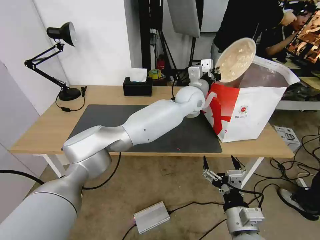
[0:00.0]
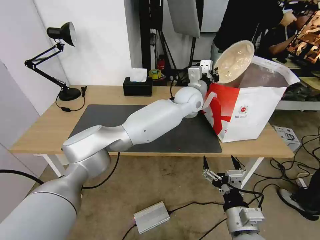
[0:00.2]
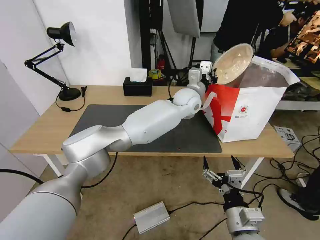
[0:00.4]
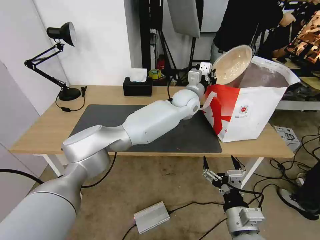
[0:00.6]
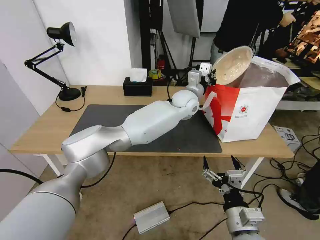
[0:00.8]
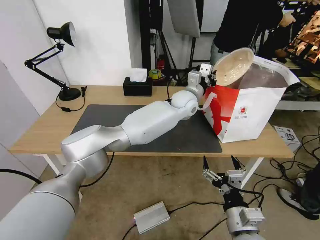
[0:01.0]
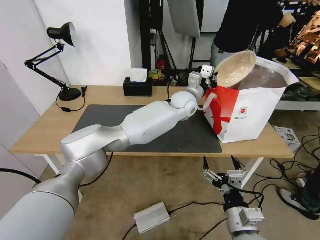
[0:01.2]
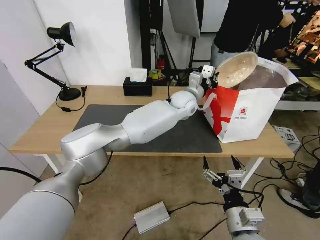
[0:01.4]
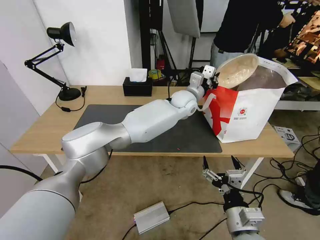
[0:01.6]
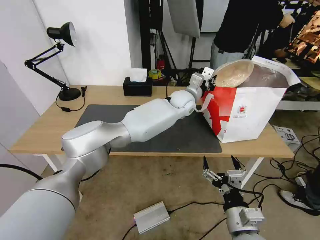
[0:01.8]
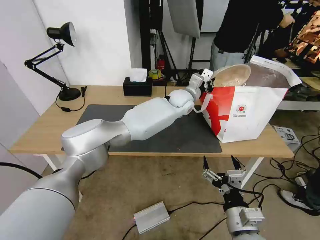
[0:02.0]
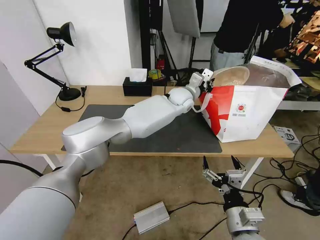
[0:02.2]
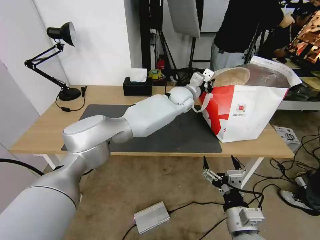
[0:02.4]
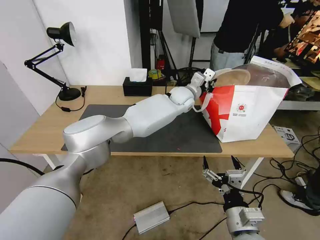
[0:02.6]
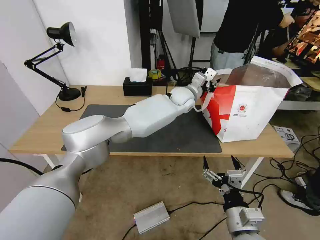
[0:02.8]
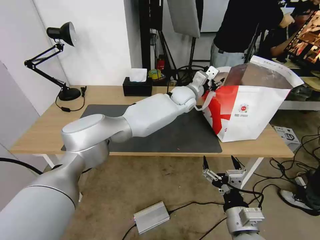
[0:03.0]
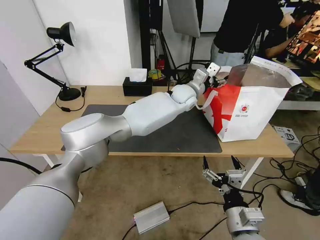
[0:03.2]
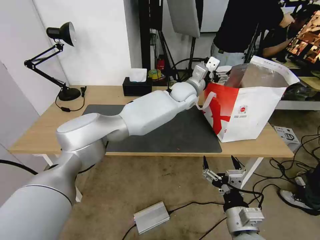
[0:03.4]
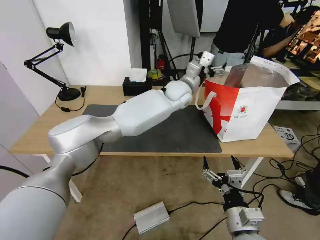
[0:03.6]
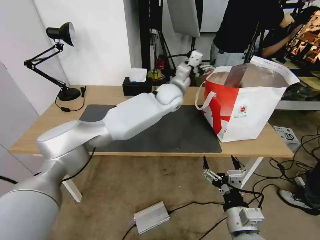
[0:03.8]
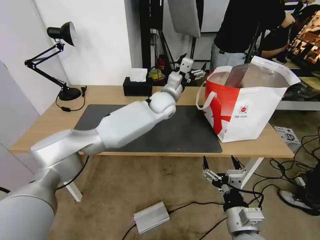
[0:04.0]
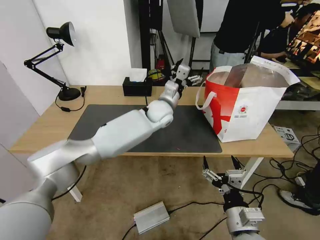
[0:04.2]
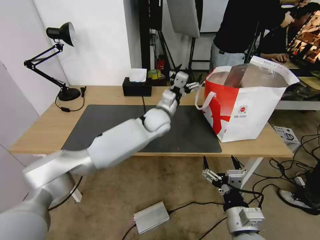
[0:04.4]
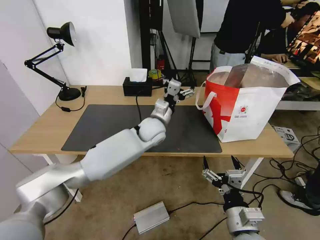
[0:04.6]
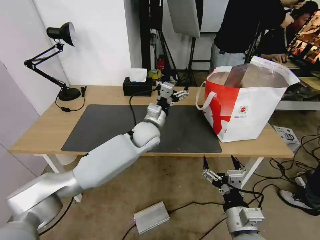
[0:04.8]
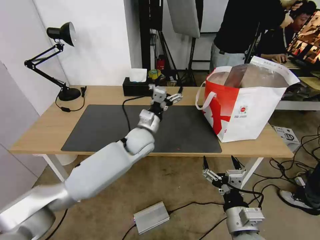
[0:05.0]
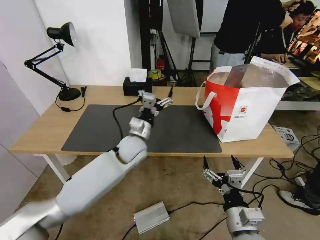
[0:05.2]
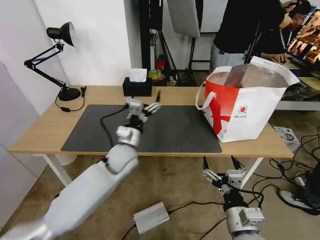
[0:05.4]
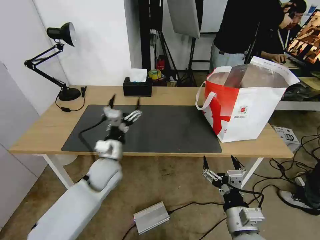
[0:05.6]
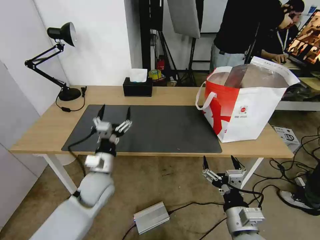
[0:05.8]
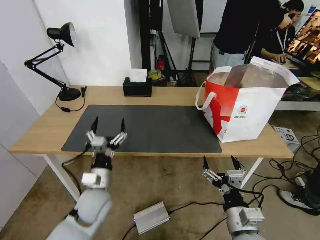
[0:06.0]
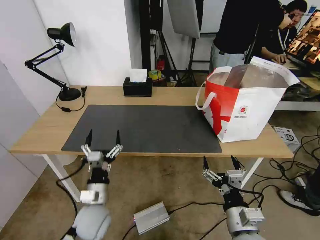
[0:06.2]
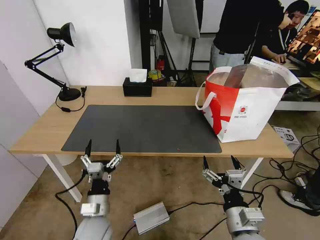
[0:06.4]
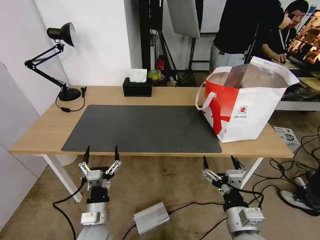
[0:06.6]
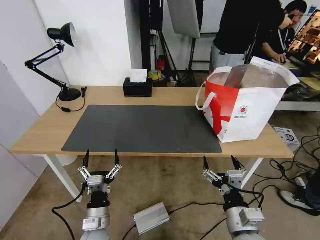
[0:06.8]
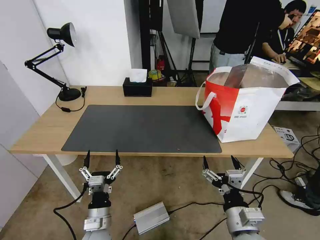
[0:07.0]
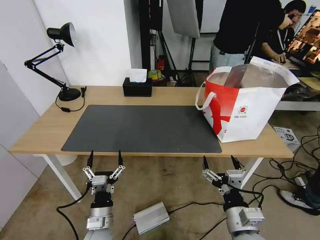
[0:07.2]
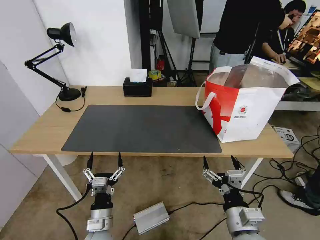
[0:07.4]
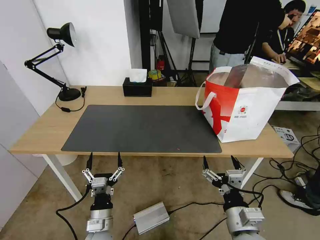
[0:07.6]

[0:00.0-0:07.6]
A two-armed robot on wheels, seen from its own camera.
Task of the whole recording: Pick up the trash from the table and place it into the takeout bag.
0:01.6 to 0:03.0: The left gripper opens.
0:03.0 to 0:04.6: The left gripper travels to the left, backward and downward by approximately 15 cm, and opens.
0:04.6 to 0:06.0: The left gripper goes some 30 cm backward, to the left and downward.
0:06.0 to 0:07.6: The left gripper shifts some 10 cm backward and downward.

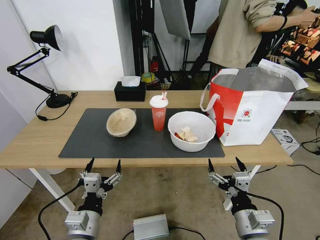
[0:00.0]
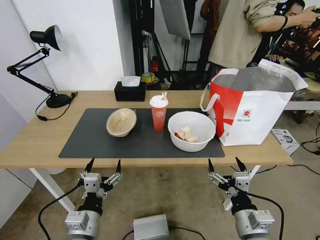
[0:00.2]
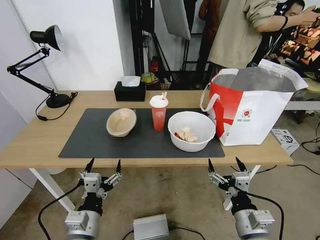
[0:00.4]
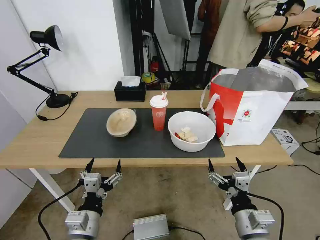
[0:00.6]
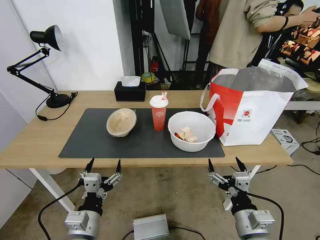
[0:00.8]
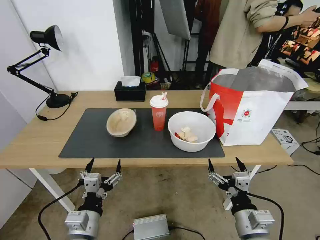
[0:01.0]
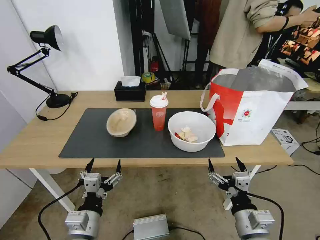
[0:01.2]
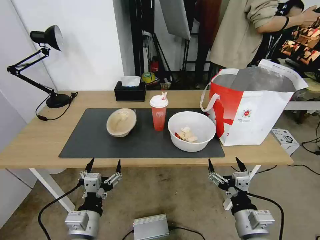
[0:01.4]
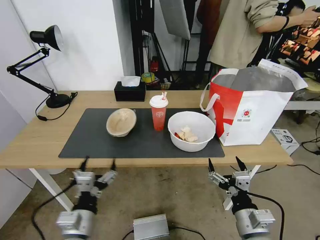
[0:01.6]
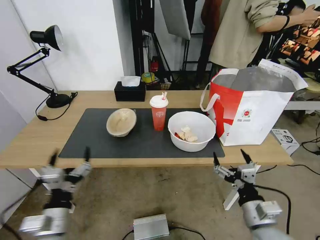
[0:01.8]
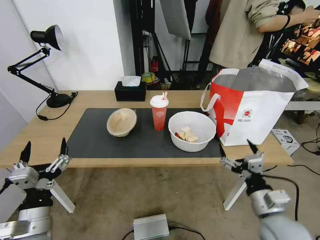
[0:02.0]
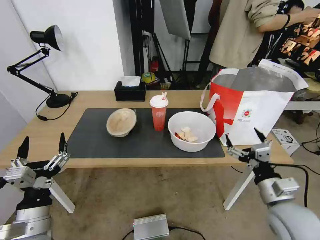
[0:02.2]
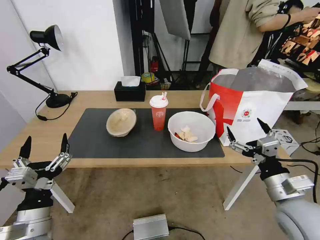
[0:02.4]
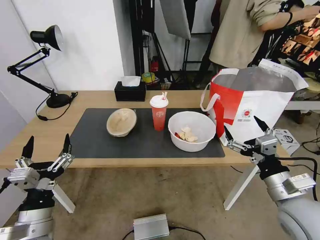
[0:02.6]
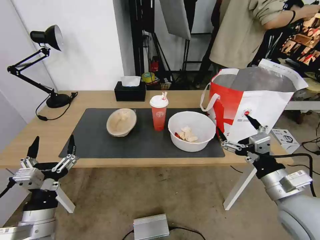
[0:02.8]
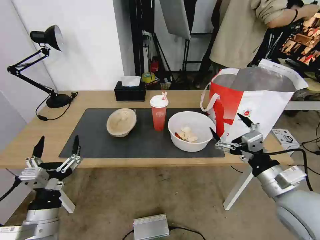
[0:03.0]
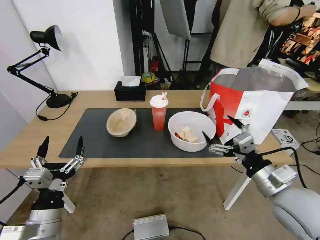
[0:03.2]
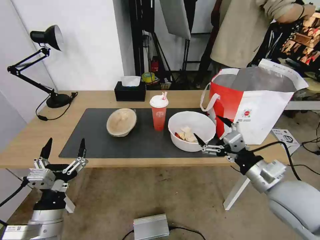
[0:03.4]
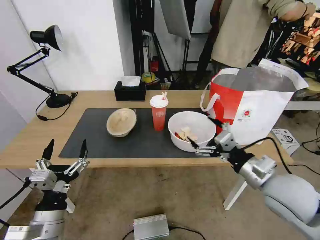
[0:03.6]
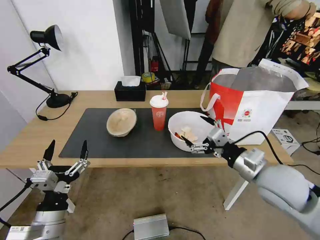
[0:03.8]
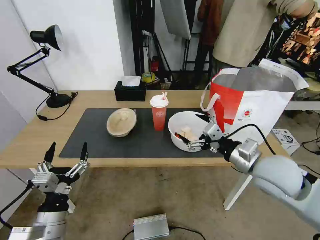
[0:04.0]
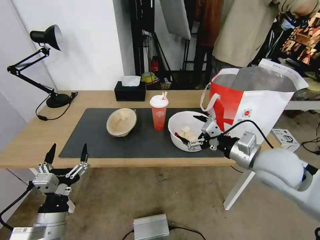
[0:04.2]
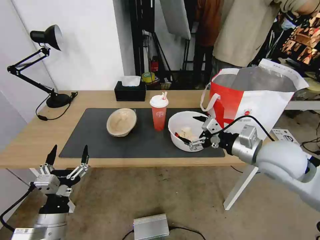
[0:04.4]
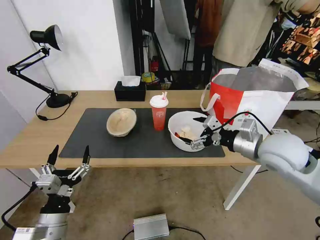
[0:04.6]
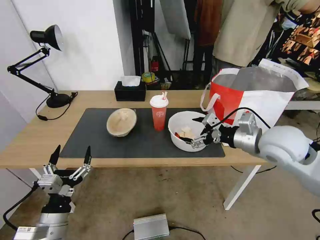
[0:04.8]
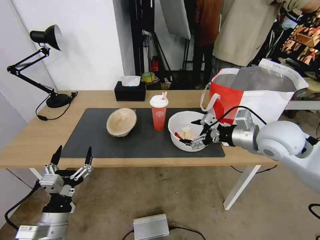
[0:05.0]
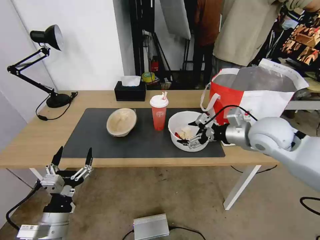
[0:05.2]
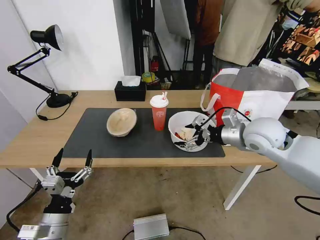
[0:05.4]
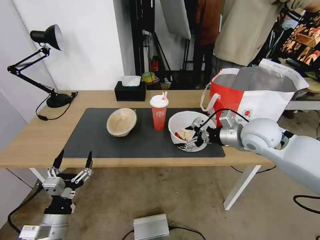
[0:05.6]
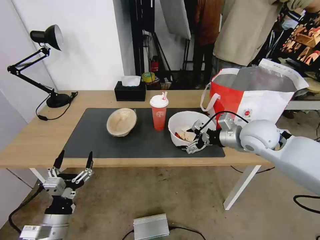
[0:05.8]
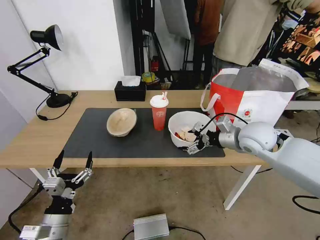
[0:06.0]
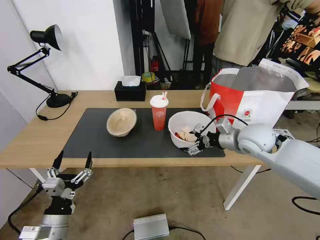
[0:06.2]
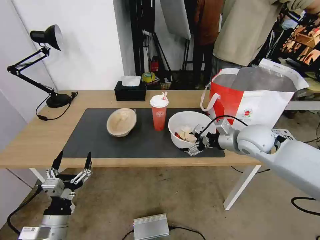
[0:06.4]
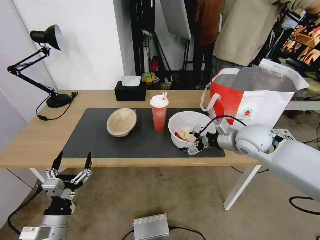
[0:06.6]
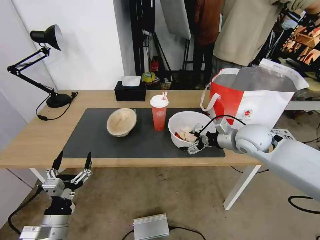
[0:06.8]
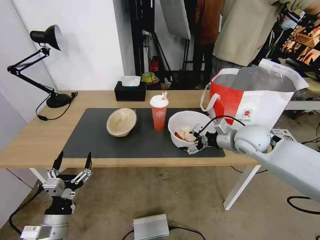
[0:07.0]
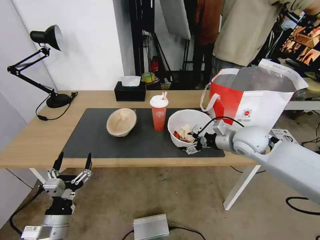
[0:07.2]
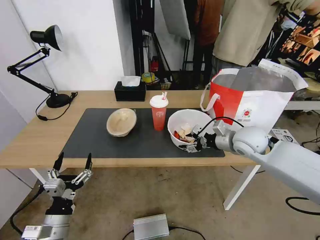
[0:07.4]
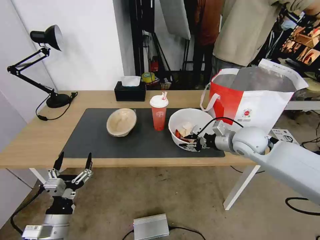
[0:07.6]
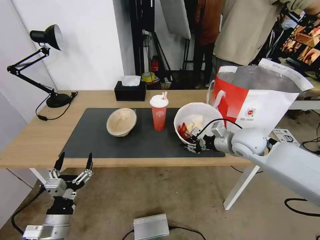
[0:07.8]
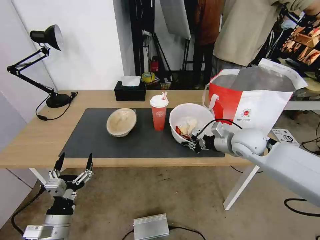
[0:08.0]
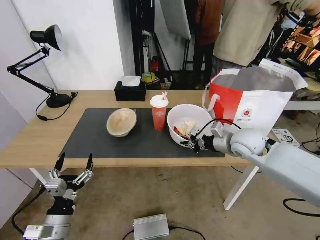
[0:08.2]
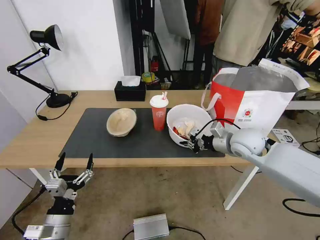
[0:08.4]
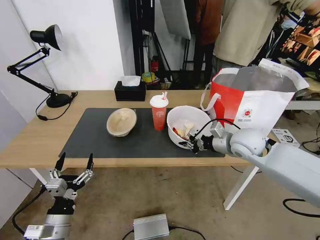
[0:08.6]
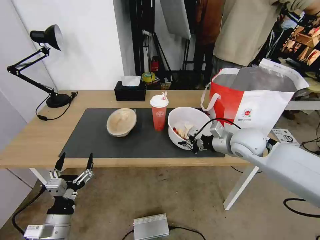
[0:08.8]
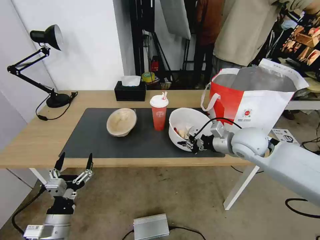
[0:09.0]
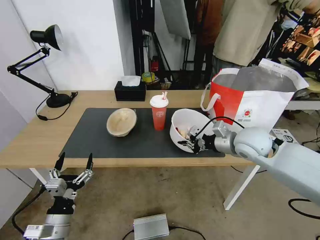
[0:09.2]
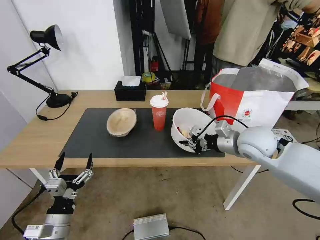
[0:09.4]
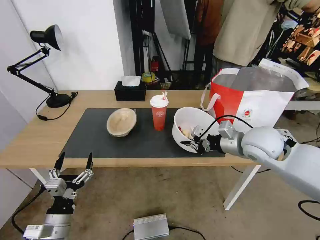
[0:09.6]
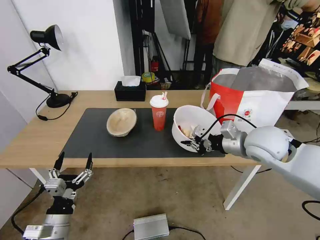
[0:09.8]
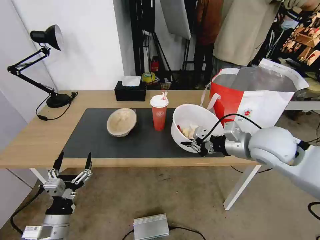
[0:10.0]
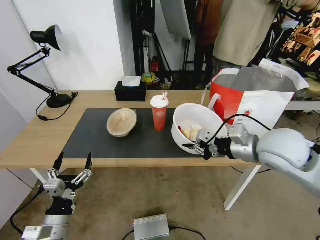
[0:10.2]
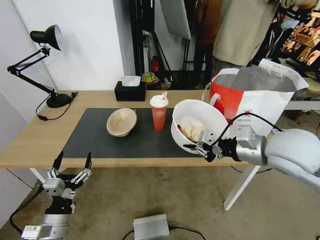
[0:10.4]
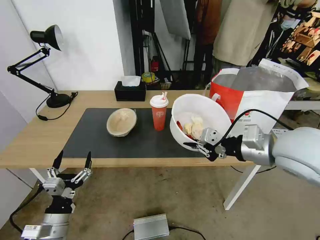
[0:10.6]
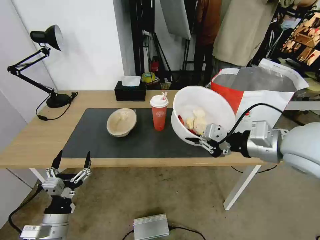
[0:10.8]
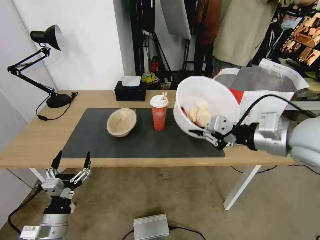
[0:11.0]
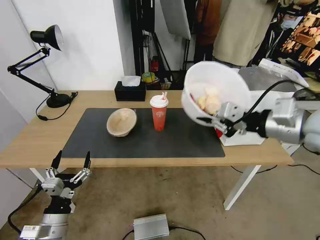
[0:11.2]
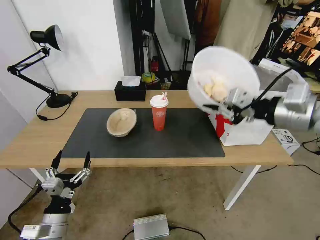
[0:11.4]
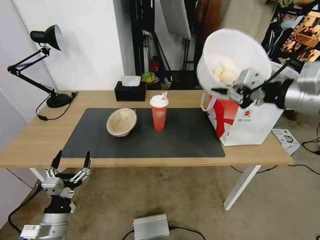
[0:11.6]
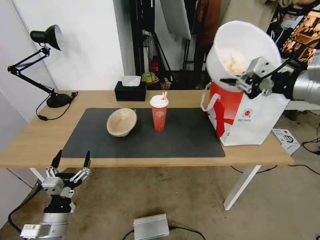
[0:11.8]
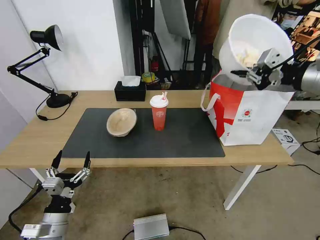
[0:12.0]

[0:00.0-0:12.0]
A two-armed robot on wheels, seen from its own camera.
Task of the whole recording: Pick up the trash from the table and place it into the takeout bag.
0:01.6 to 0:03.0: The right gripper moves upward, forward and to the right, approximately 15 cm; the left gripper is displaced to the left by approximately 5 cm.
0:03.0 to 0:04.4: The right gripper shifts about 10 cm forward.
0:04.4 to 0:06.0: The right gripper is displaced forward by roughly 10 cm.
0:06.0 to 0:07.6: The right gripper closes.
0:07.6 to 0:09.0: The right gripper closes.
0:09.0 to 0:10.4: The right gripper shifts approximately 15 cm backward and upward.
0:10.4 to 0:12.0: The right gripper heads upward, to the right and forward, covering approximately 20 cm.

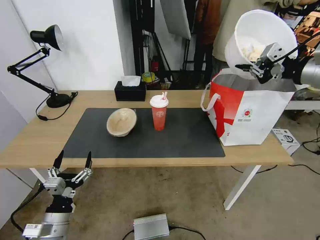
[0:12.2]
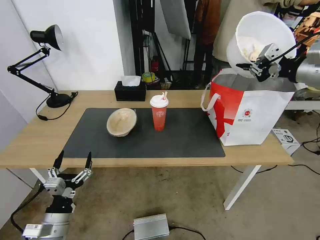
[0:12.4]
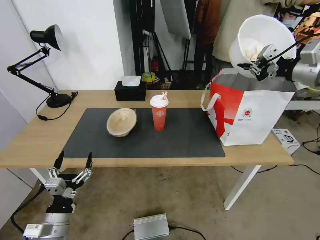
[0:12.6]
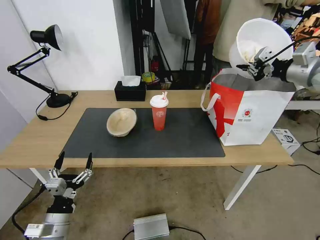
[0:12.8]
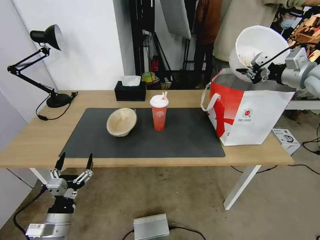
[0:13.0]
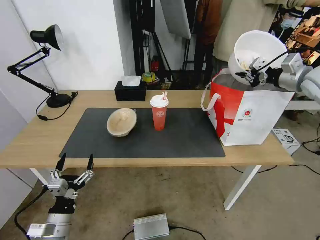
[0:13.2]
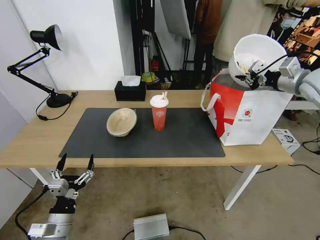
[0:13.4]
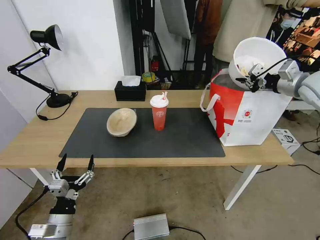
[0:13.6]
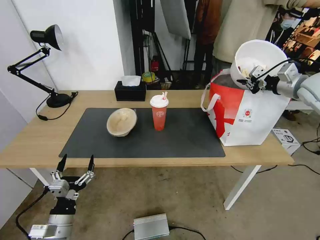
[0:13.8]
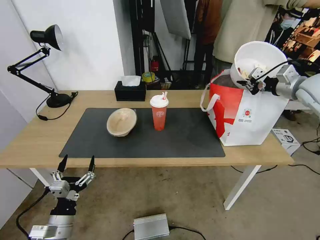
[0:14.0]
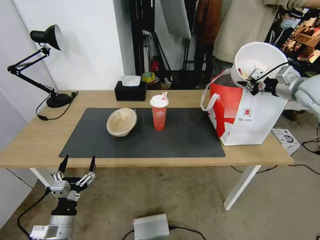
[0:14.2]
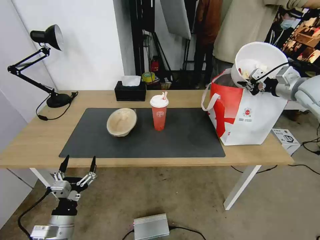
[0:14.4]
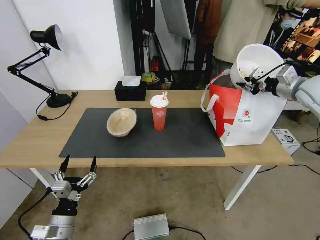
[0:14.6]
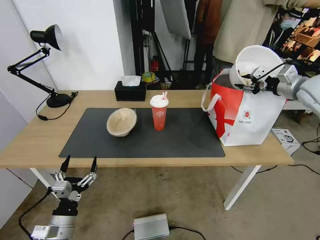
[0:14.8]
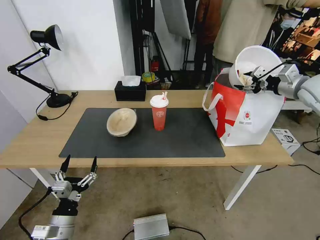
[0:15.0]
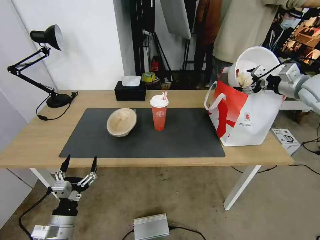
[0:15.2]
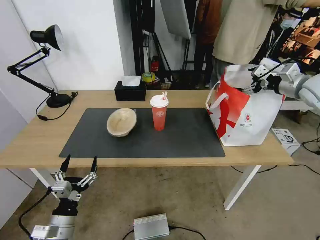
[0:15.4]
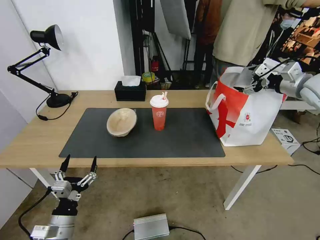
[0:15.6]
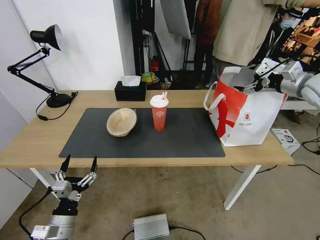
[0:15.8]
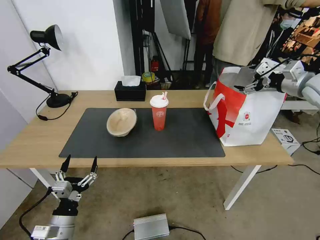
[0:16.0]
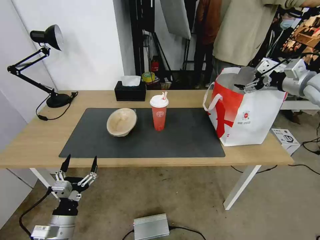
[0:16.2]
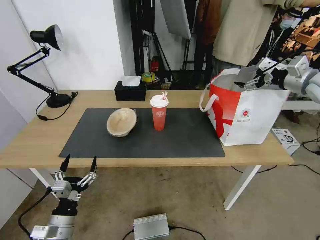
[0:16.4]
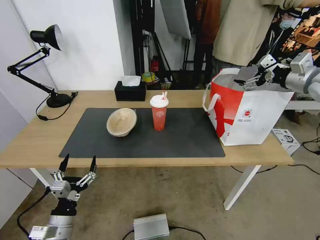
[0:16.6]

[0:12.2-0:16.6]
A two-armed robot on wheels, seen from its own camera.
Task of the whole recording: Pick up the trash from the table and place it into the takeout bag.
0:12.2 to 0:13.6: The right gripper goes approximately 15 cm forward and downward.
0:13.6 to 0:15.2: The right gripper opens up.
0:15.2 to 0:16.6: There are only small adjustments of the grippers.
